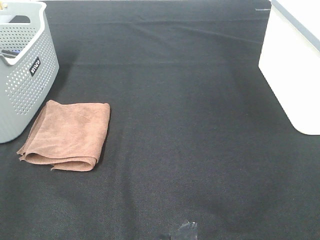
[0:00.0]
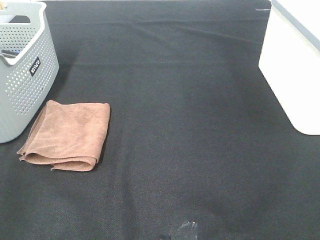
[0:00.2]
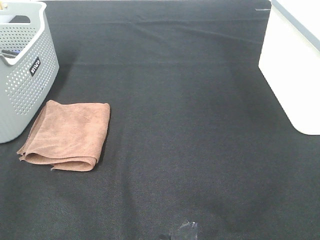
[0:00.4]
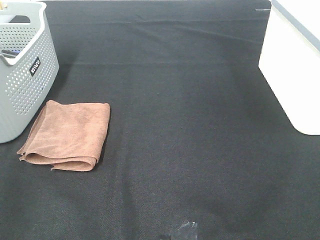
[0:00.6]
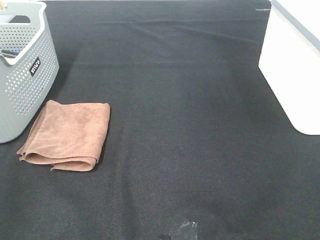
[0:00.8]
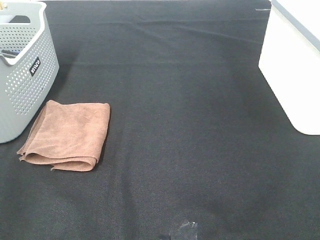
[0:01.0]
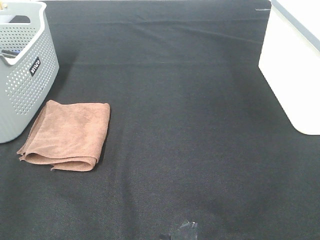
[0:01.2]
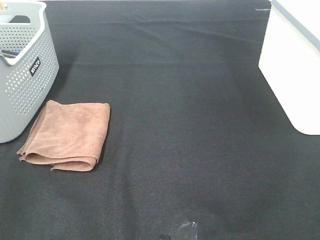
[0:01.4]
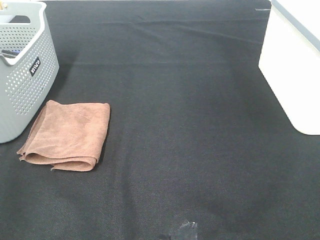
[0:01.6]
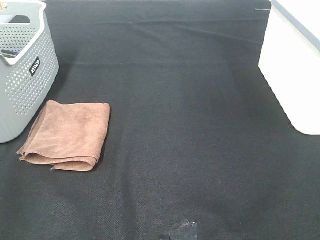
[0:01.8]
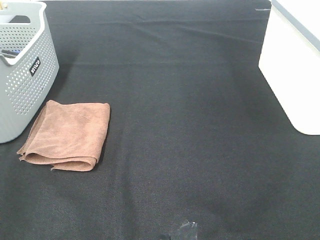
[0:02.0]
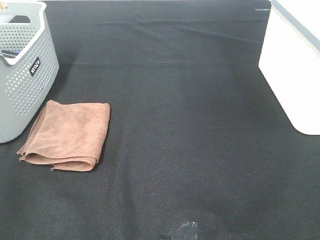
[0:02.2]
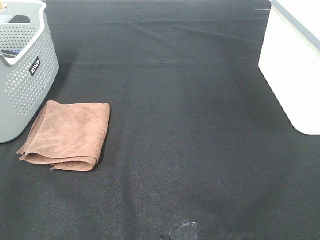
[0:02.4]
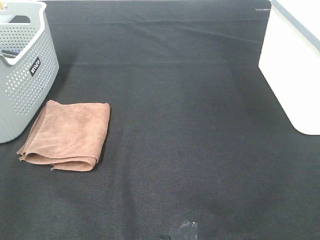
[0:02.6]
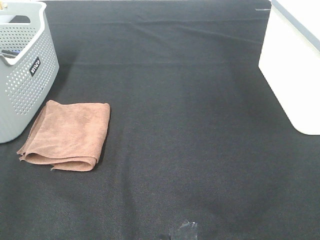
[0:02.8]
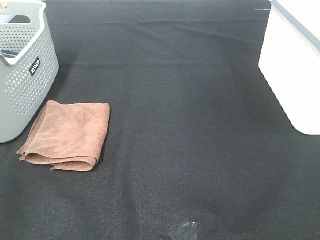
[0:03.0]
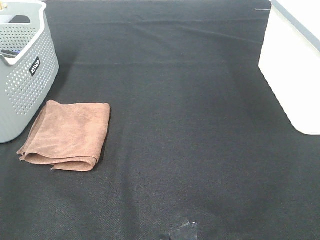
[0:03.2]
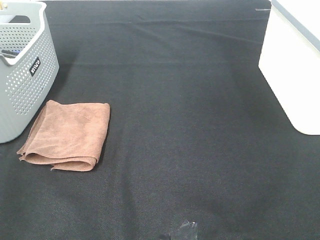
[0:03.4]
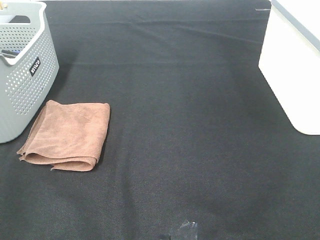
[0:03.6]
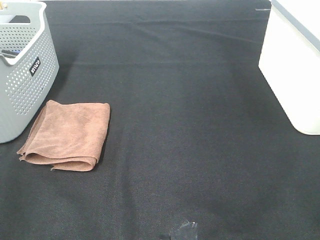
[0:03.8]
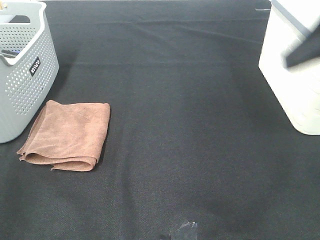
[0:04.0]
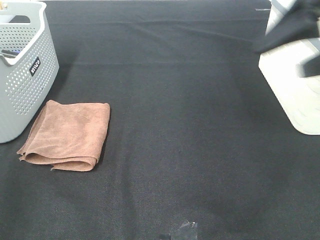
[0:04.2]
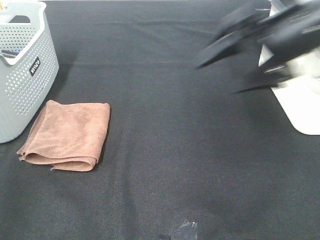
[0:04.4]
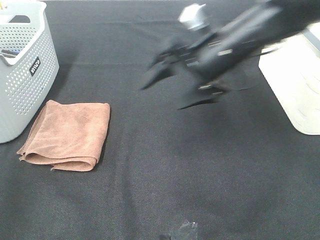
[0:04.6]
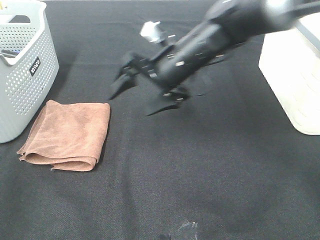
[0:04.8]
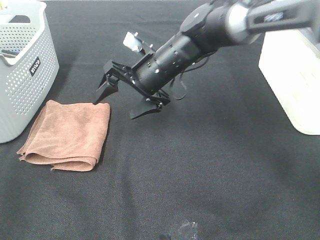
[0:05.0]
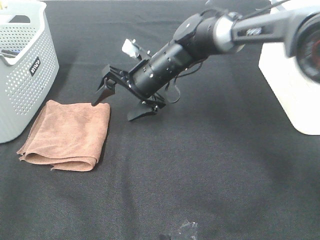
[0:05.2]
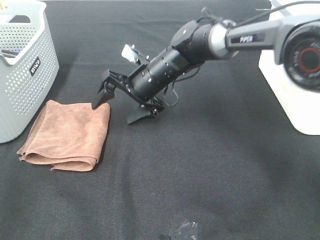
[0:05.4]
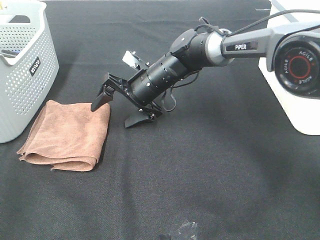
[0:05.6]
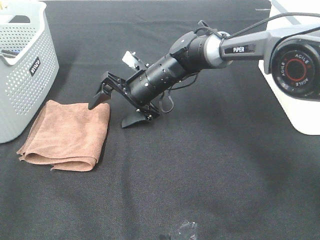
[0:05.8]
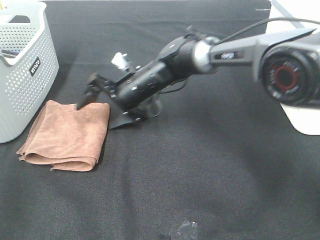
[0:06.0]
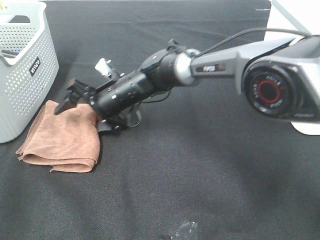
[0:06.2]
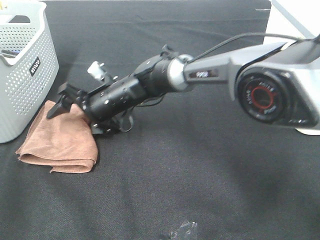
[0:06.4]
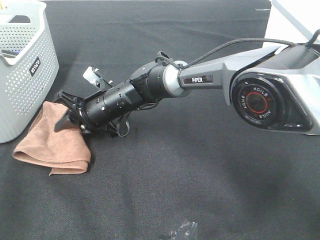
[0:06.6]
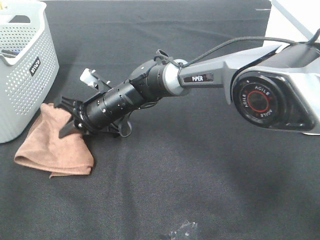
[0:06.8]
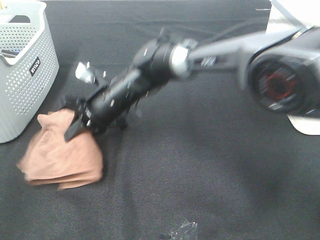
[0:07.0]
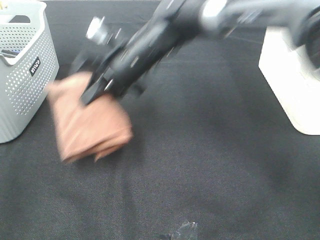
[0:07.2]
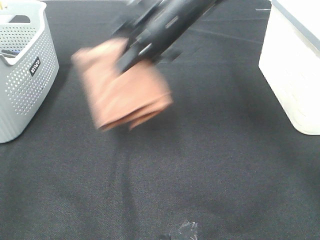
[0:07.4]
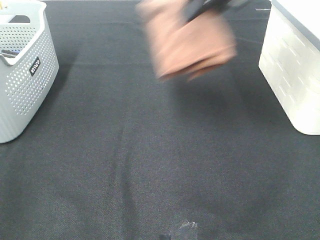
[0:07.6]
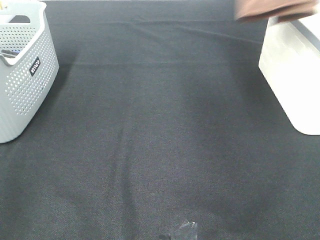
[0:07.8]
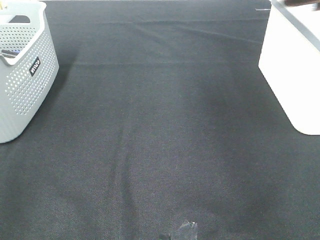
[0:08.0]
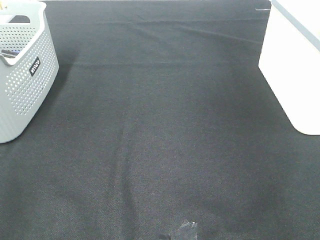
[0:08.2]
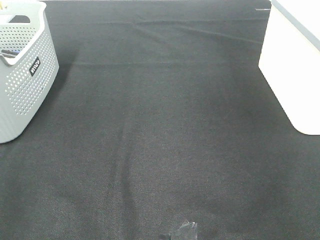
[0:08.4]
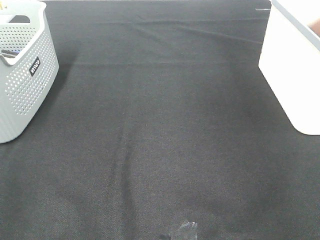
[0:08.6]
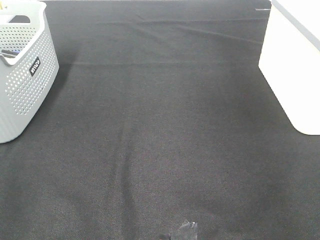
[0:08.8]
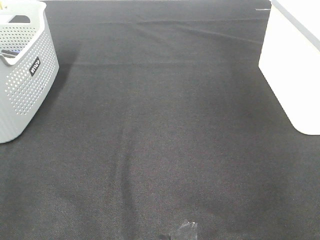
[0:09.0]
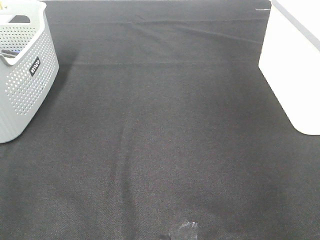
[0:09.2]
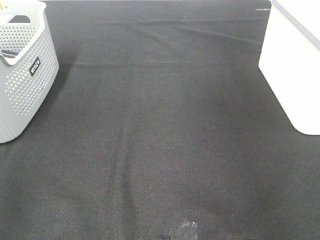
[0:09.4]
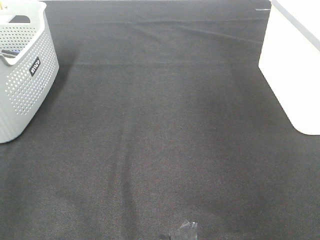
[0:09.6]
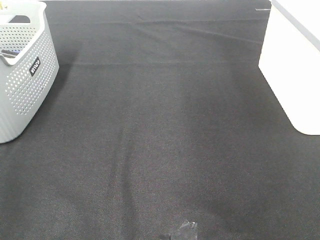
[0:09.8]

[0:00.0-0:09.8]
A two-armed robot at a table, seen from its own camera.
Step, 0:00.0 to 0:06.6: Right hand: grab the folded brown towel.
Step, 0:06.8 to 0:08.6: Right hand: place the brown towel in right basket.
0:00.0 to 0:01.4: Both grippers stay about where they are.
0:02.8 to 0:04.2: The right gripper goes some 25 cm forward.
0:04.2 to 0:05.6: The right gripper heads to the left, downward and forward, covering roughly 35 cm.
0:05.6 to 0:07.0: The right gripper shifts approximately 10 cm to the left and backward, and closes its fingers.
0:07.0 to 0:08.4: The right gripper moves to the right and upward, approximately 50 cm.

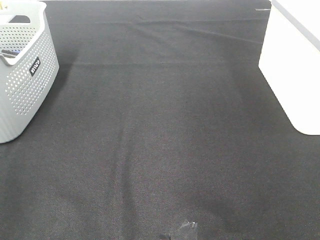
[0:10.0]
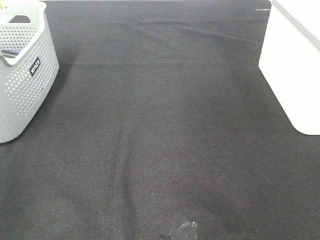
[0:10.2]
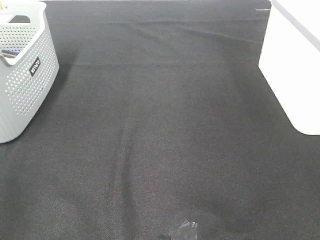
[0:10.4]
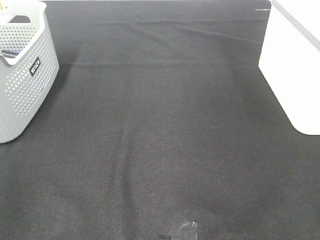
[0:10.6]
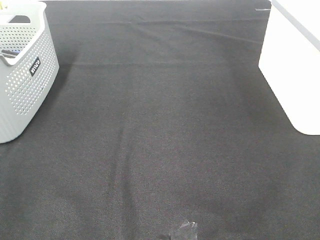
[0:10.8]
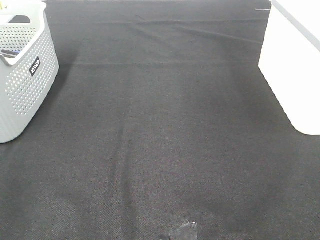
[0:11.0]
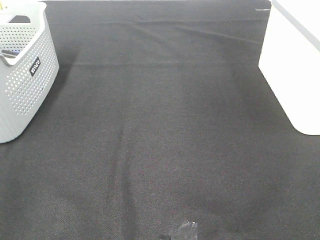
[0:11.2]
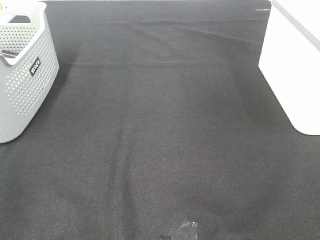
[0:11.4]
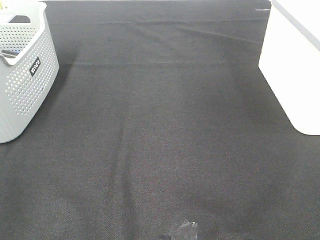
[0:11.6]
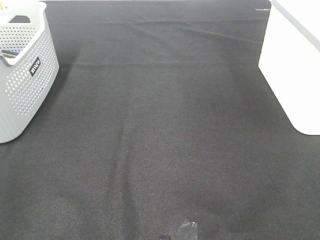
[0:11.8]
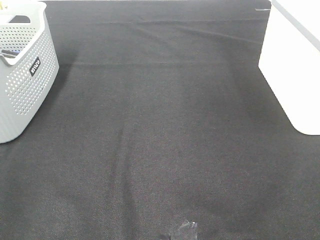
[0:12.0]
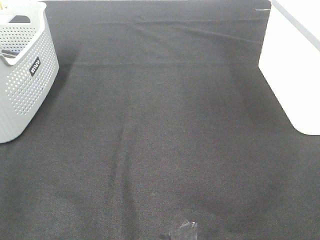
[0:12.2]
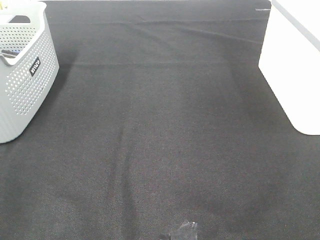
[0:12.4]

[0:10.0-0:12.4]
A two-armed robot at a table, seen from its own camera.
0:11.2 to 0:12.4: The two grippers keep their place.
